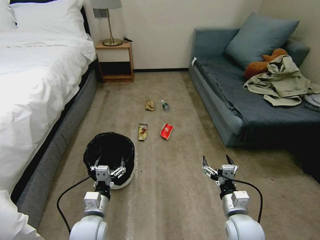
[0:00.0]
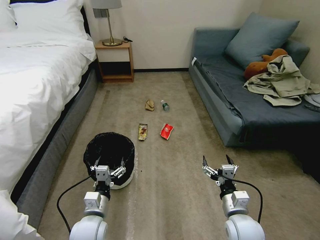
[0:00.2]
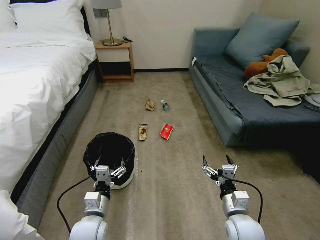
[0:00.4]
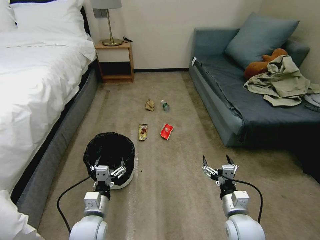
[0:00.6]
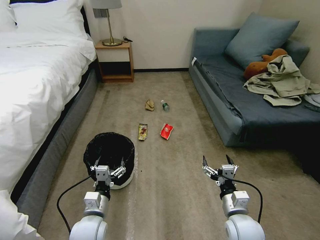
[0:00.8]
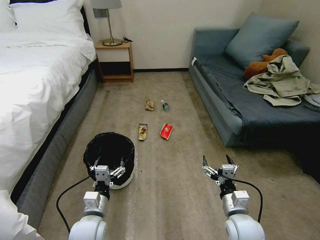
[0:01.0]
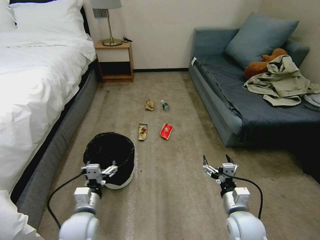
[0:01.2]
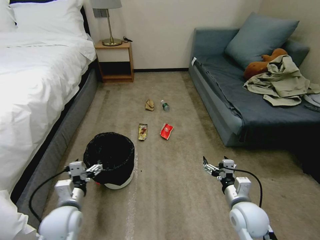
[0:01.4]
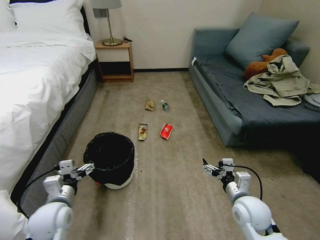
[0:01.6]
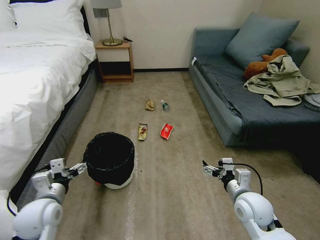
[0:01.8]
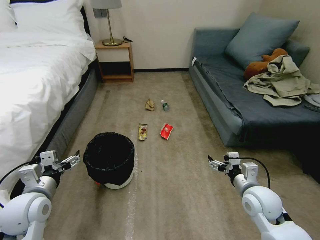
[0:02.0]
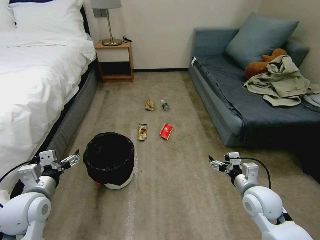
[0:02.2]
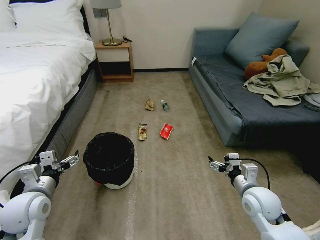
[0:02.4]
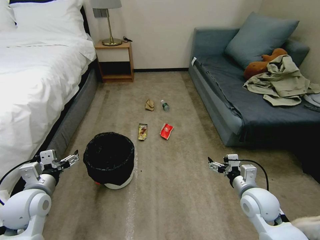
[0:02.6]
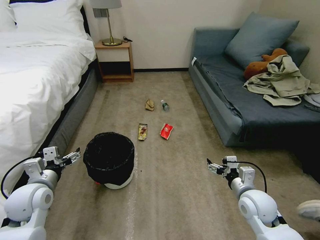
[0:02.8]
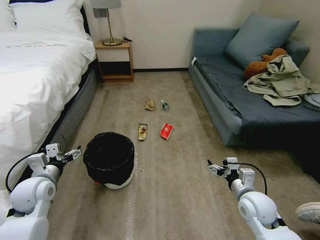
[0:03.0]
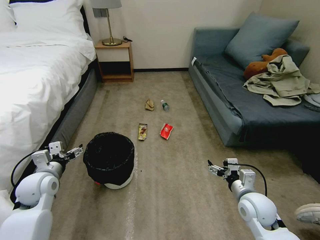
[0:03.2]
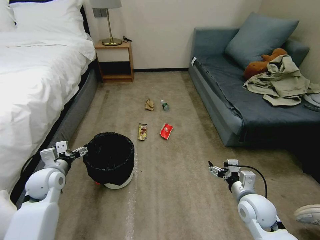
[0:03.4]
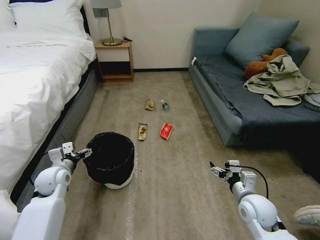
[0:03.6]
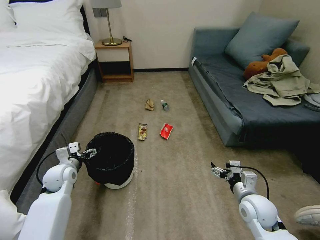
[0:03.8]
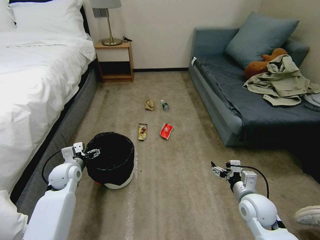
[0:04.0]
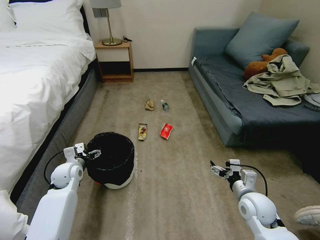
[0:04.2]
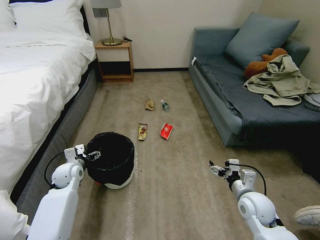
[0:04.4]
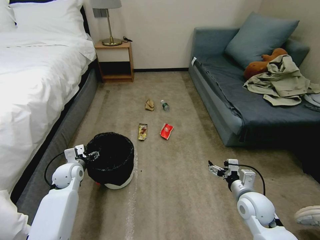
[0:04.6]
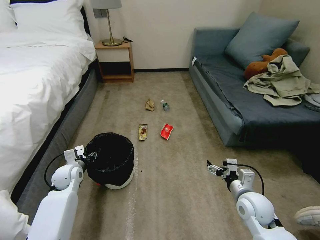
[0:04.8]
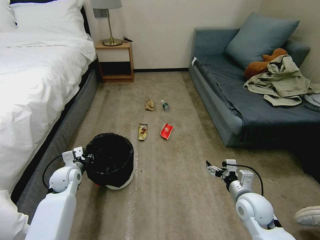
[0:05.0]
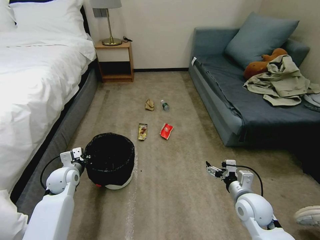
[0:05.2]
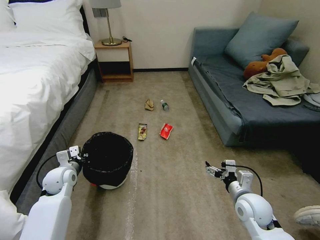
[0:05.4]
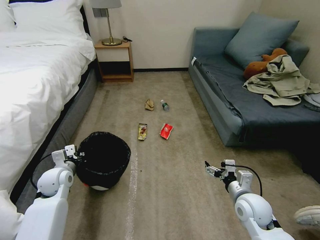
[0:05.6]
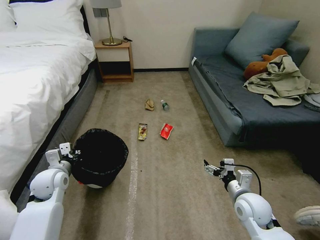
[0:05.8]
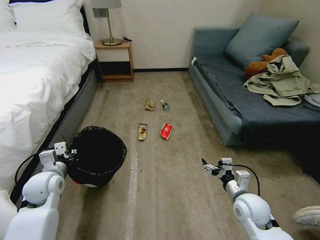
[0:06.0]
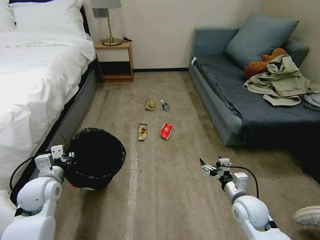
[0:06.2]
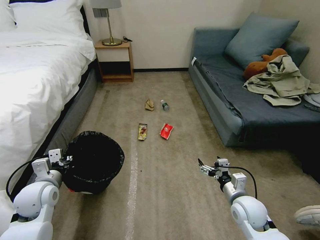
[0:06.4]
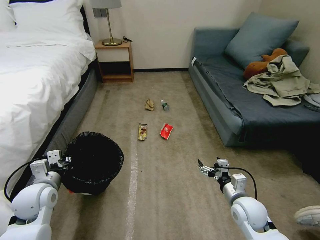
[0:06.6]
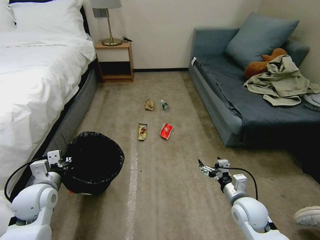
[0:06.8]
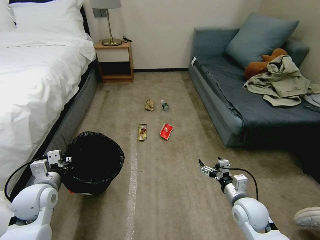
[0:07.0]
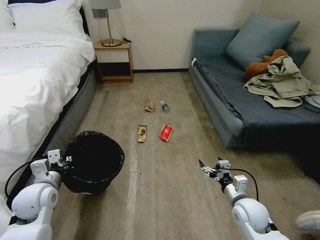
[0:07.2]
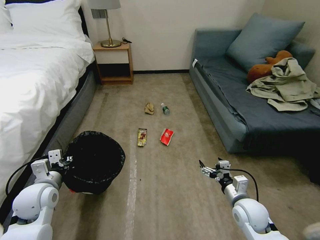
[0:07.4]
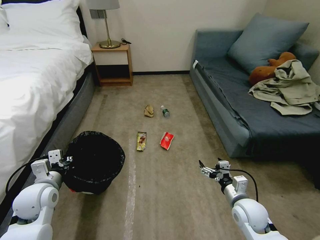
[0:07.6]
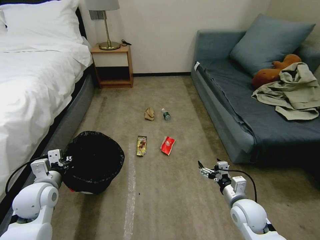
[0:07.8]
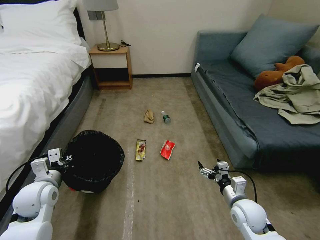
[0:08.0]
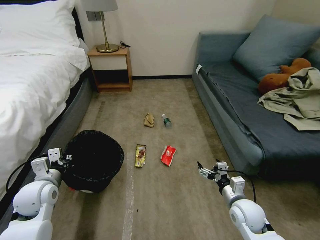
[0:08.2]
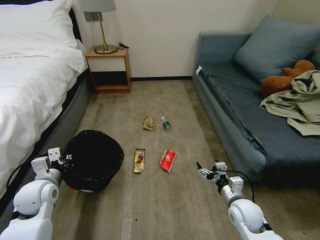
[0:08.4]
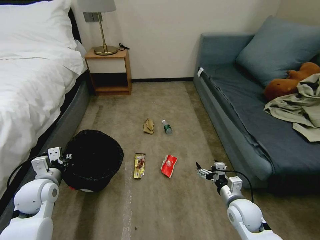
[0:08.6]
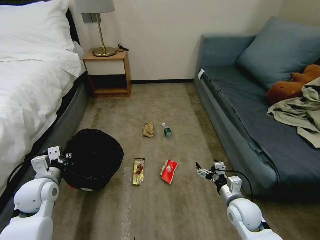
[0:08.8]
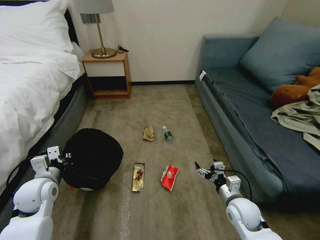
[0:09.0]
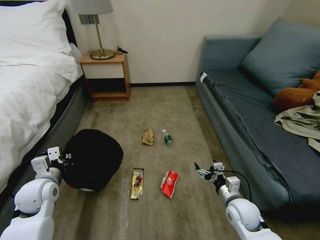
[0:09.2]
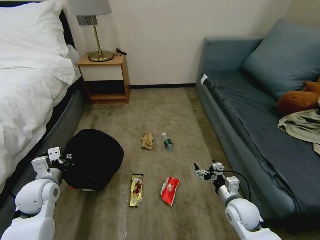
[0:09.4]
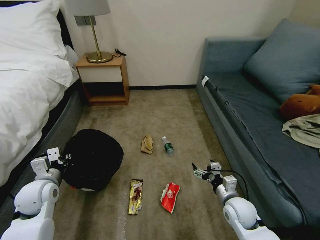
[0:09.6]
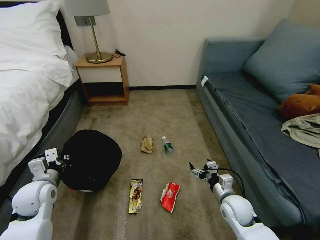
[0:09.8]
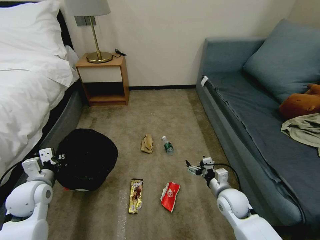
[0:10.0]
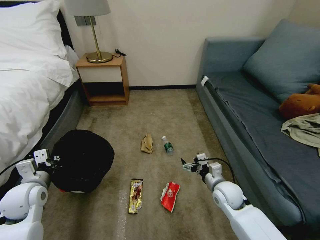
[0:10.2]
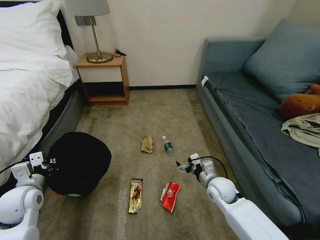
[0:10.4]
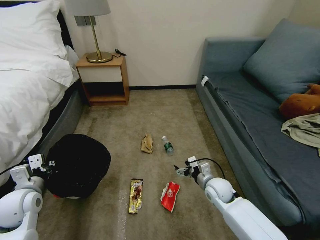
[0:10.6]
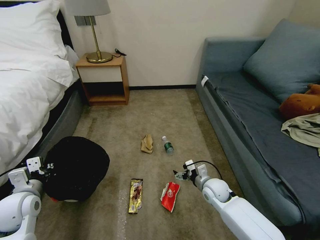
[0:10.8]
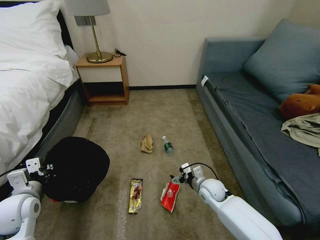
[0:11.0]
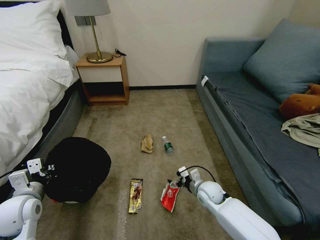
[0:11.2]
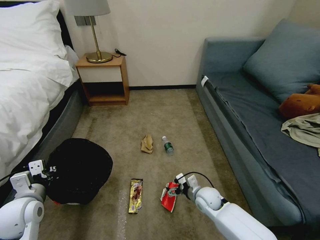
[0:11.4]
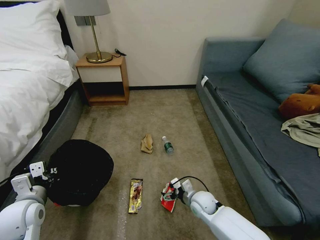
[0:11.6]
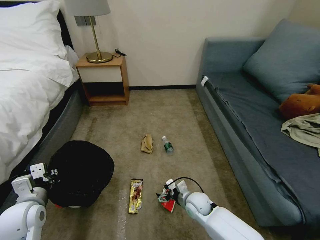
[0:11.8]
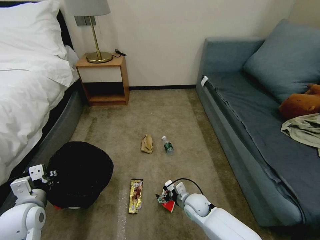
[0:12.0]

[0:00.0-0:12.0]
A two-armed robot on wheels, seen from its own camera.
Task of the whole recording: Pick up the trash bin, then pick up the garbage on the floor and place it into the trash bin.
0:01.6 to 0:03.0: The left gripper goes roughly 10 cm to the left and forward.
0:03.0 to 0:04.4: The left gripper shifts approximately 15 cm forward and downward.
0:04.4 to 0:06.0: The left gripper heads backward and upward, covering some 10 cm, and closes its fingers.
0:09.0 to 0:10.4: The right gripper shifts about 5 cm forward.
0:10.4 to 0:12.0: The left gripper ends up approximately 5 cm from where it was, while the right gripper heads downward and to the left, covering roughly 10 cm.

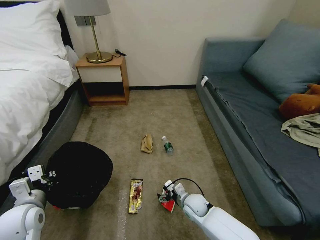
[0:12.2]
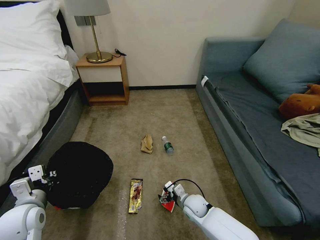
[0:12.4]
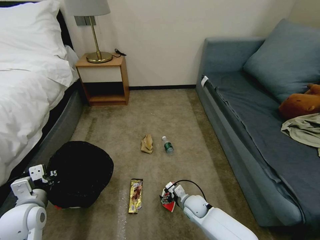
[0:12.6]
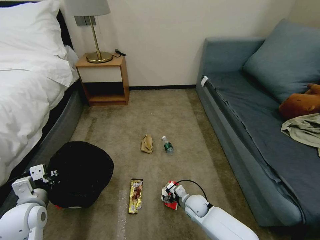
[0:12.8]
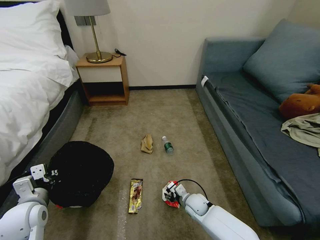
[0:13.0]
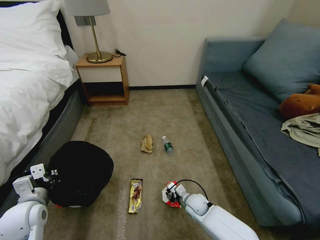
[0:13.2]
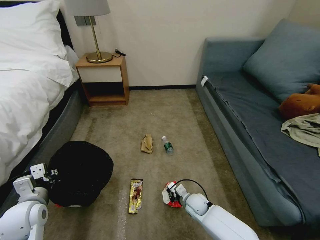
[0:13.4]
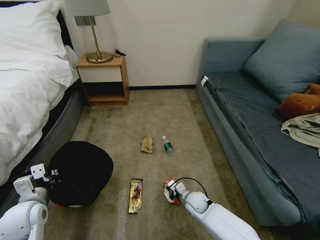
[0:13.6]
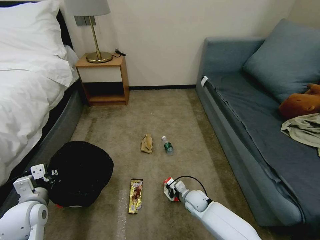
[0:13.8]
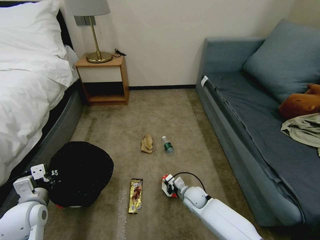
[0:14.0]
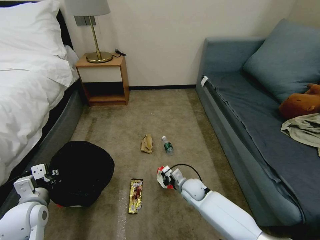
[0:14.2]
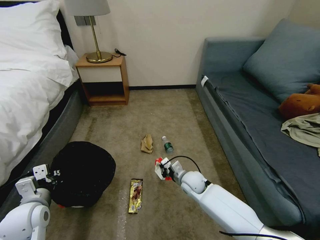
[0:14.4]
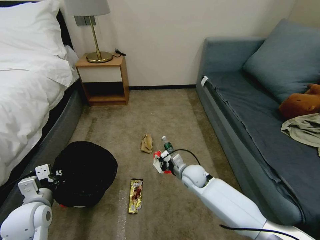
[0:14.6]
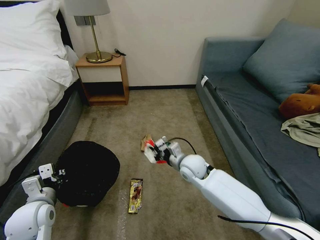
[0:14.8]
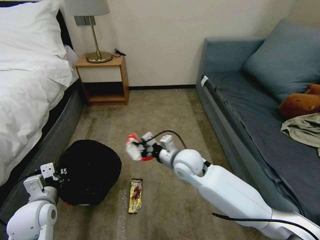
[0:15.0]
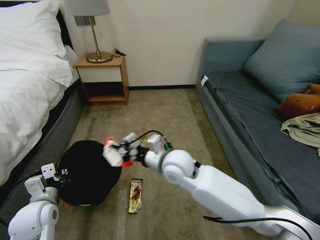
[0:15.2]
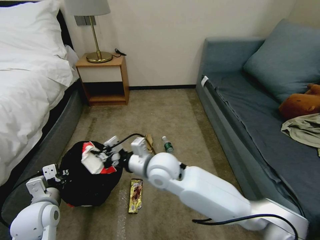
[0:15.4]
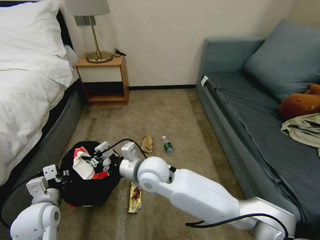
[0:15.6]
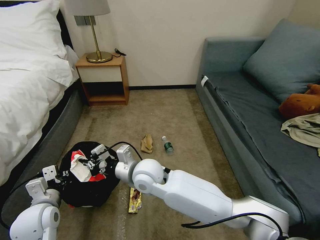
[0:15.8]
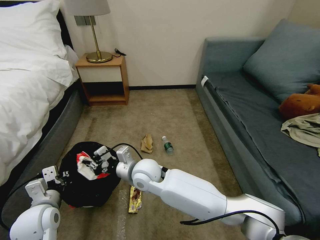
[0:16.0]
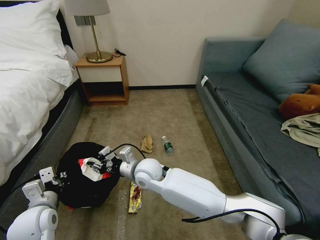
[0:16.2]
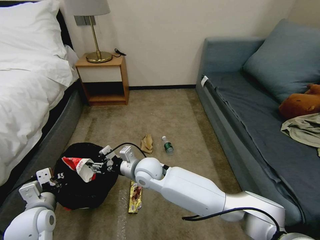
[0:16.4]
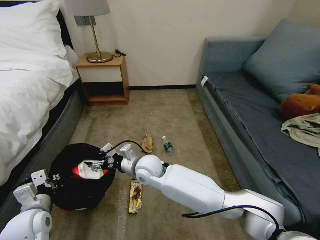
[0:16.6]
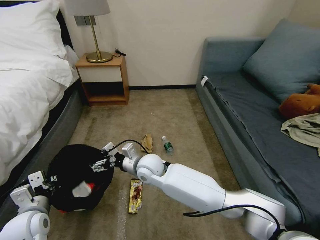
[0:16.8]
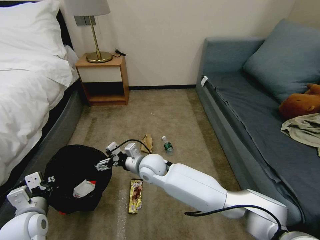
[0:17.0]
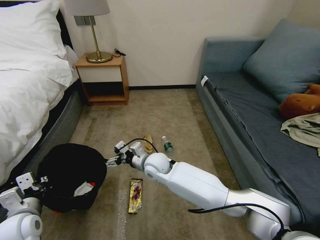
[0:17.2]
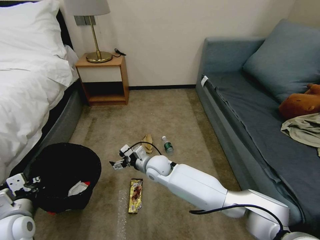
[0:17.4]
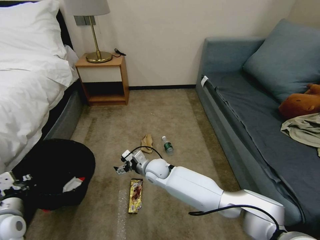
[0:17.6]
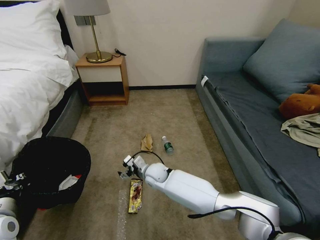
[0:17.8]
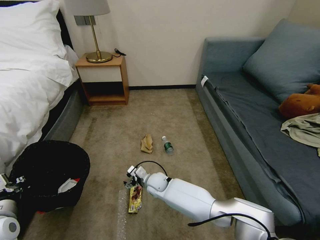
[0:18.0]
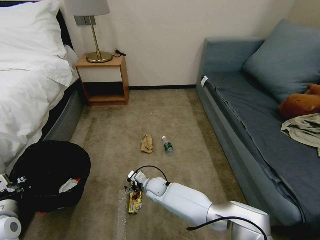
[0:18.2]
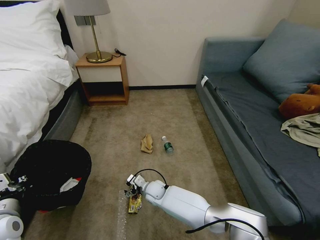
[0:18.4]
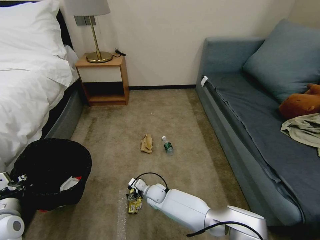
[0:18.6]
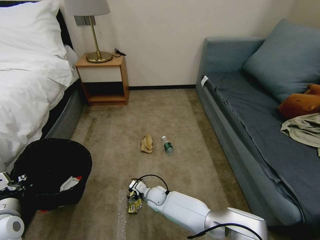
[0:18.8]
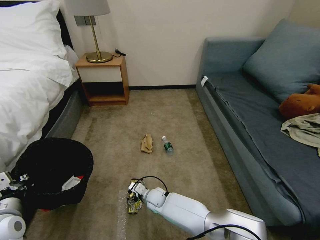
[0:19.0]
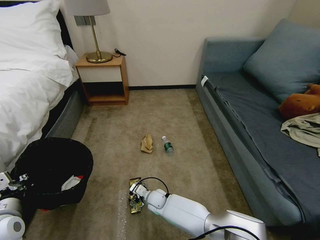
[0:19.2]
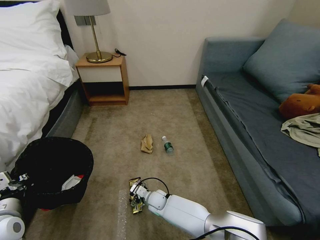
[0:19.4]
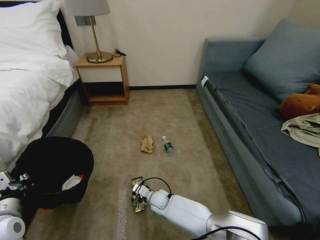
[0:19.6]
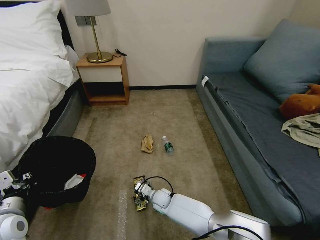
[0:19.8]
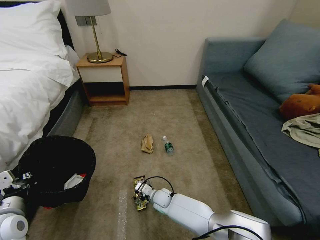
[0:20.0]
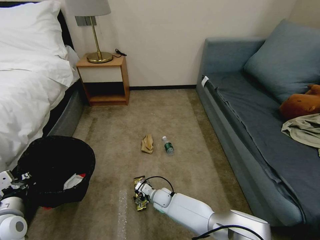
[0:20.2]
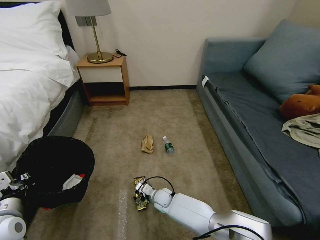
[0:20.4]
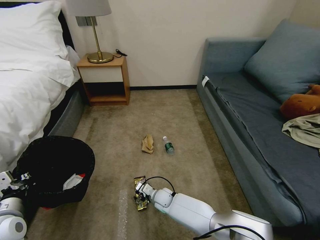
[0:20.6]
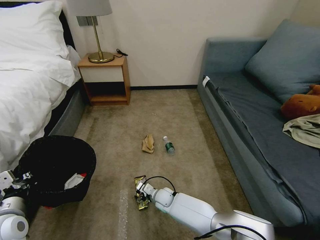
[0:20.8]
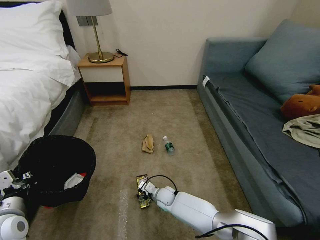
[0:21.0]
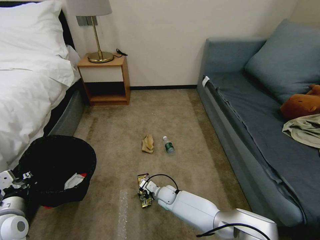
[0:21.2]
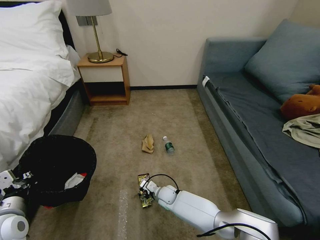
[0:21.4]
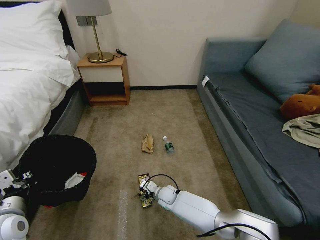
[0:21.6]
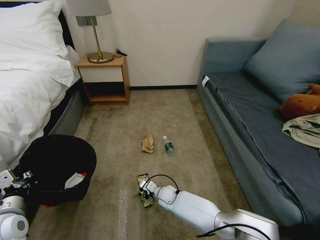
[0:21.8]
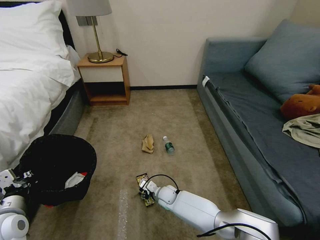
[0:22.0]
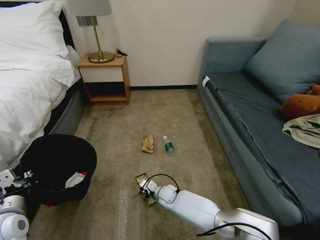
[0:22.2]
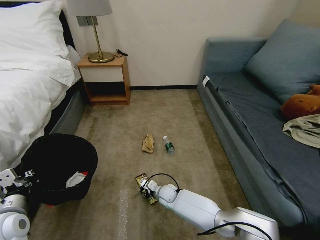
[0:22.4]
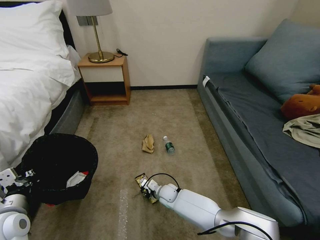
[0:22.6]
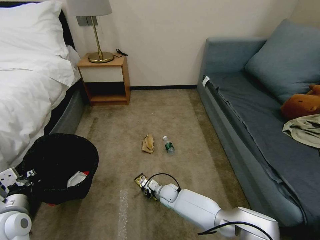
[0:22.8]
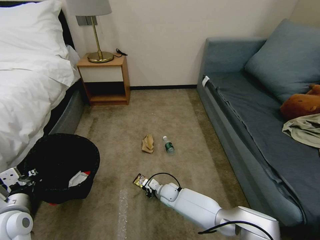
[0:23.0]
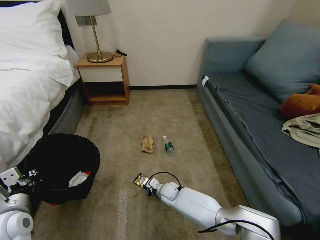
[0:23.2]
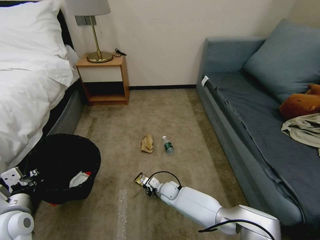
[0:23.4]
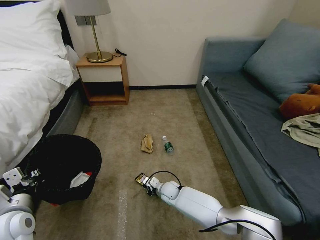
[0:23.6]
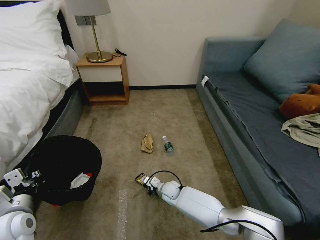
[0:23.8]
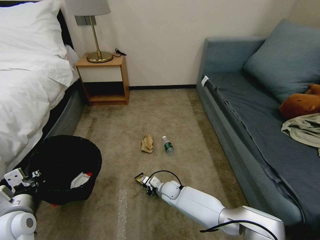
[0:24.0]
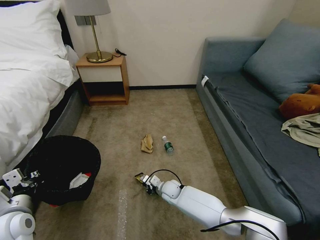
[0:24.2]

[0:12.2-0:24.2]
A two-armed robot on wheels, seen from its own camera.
Task of the whole recording: Pick up the trash bin, then pick up the garbage on the floor and place it into the trash bin.
0:12.2 to 0:13.8: The right gripper closes its fingers.
0:13.8 to 0:15.2: The right gripper travels upward by some 30 cm.
0:15.2 to 0:16.6: The right gripper shifts some 10 cm to the left and downward, and opens.
0:16.6 to 0:18.2: The right gripper moves downward, approximately 20 cm, while the left gripper heads to the left, covering roughly 5 cm.
0:18.2 to 0:19.8: The right gripper heads downward, covering approximately 5 cm.
0:19.8 to 0:21.2: There are only small adjustments of the grippers.
0:21.2 to 0:22.6: The right gripper closes up.
0:22.6 to 0:24.2: The right gripper closes up.
